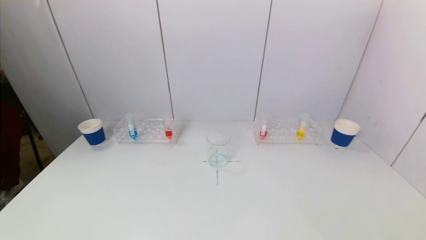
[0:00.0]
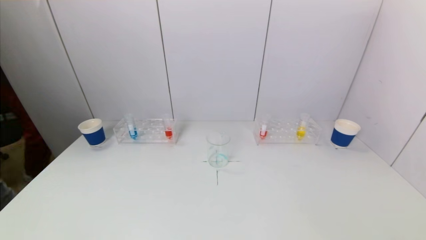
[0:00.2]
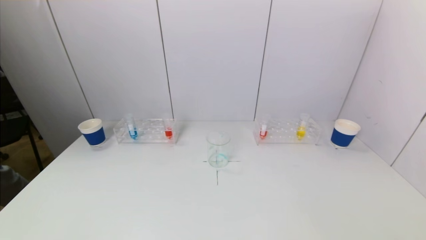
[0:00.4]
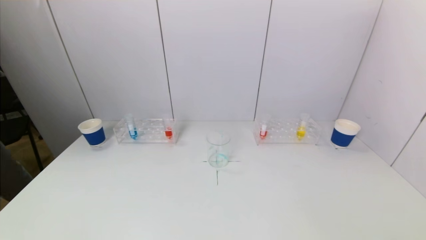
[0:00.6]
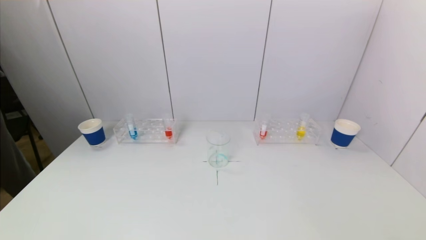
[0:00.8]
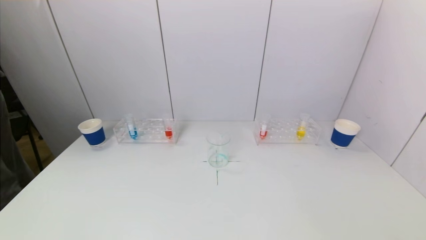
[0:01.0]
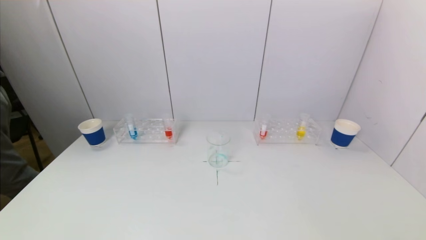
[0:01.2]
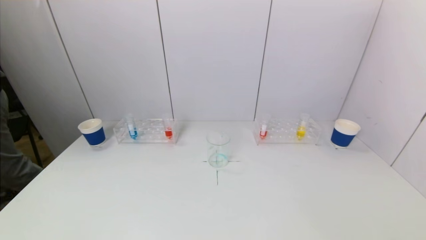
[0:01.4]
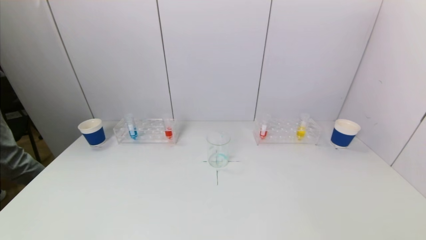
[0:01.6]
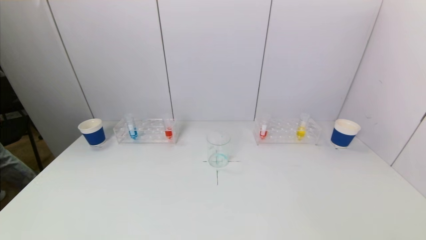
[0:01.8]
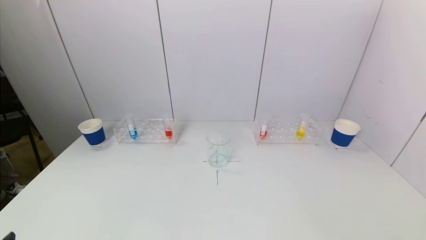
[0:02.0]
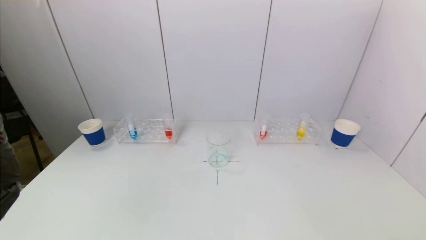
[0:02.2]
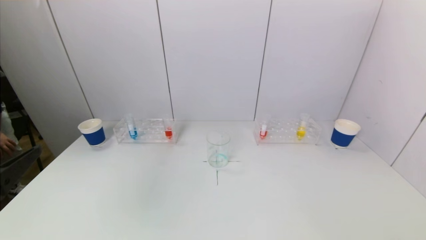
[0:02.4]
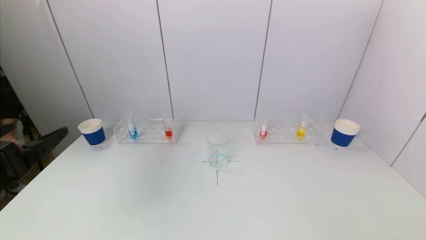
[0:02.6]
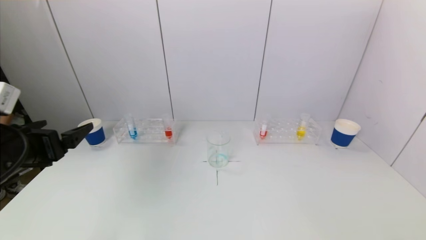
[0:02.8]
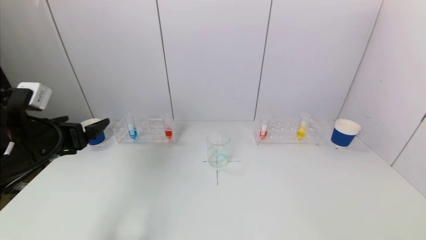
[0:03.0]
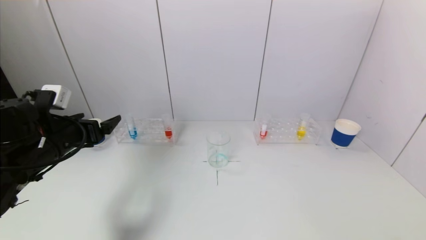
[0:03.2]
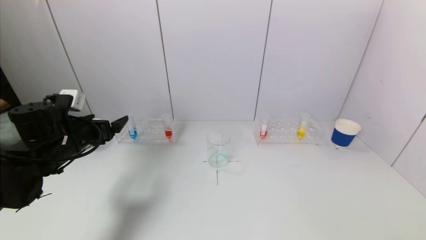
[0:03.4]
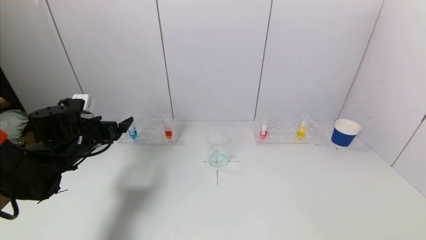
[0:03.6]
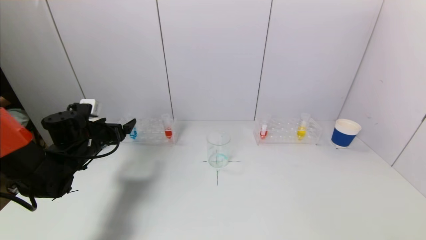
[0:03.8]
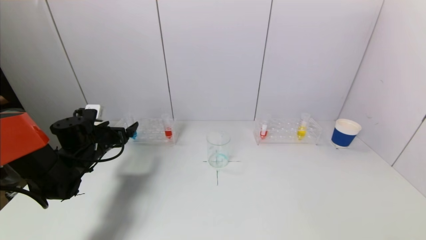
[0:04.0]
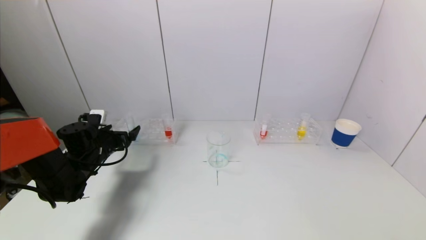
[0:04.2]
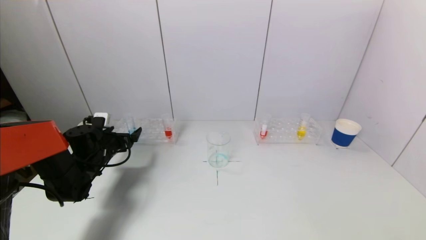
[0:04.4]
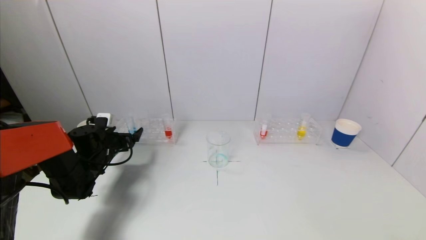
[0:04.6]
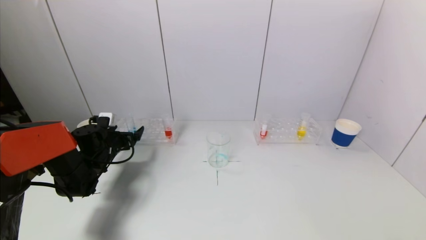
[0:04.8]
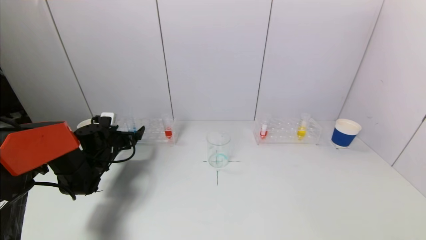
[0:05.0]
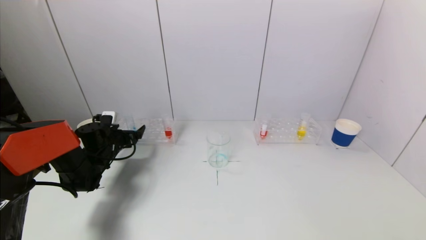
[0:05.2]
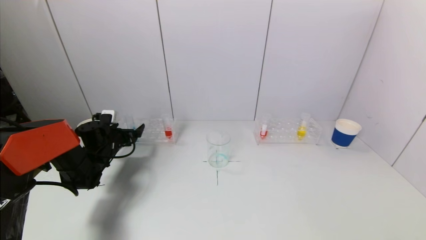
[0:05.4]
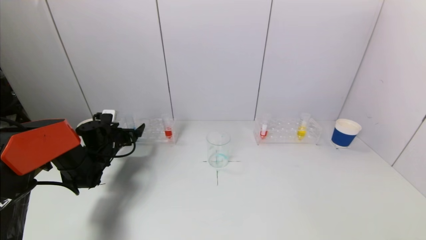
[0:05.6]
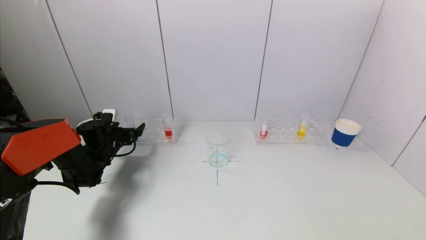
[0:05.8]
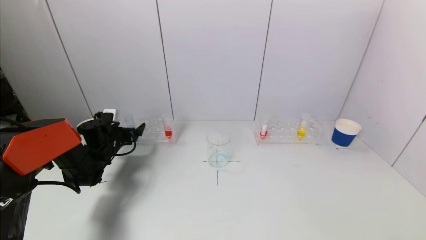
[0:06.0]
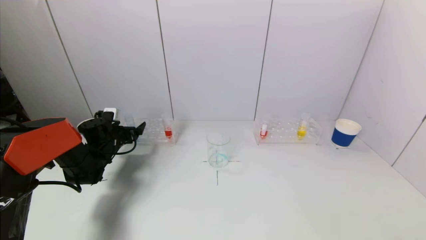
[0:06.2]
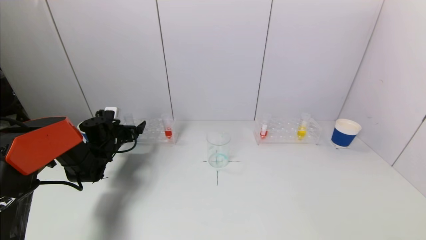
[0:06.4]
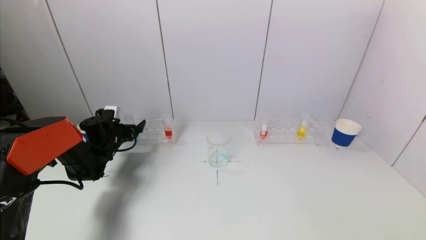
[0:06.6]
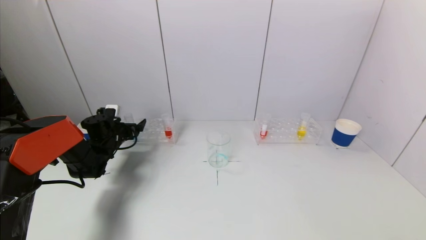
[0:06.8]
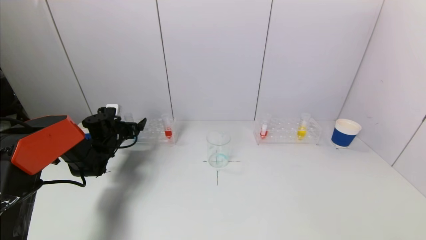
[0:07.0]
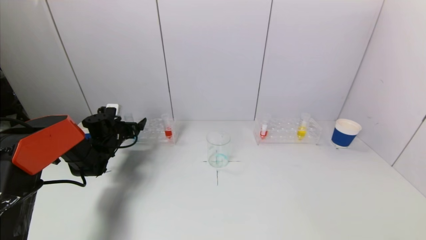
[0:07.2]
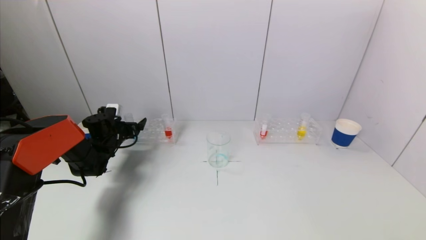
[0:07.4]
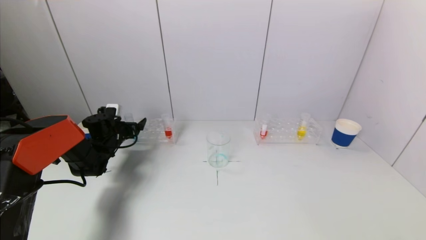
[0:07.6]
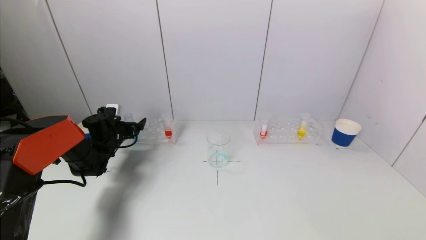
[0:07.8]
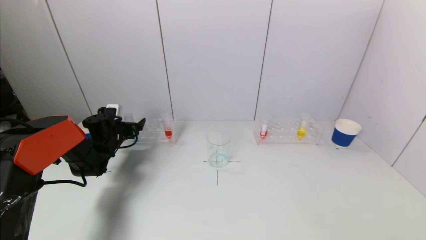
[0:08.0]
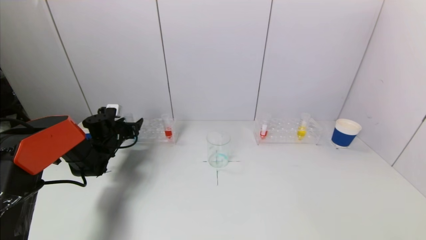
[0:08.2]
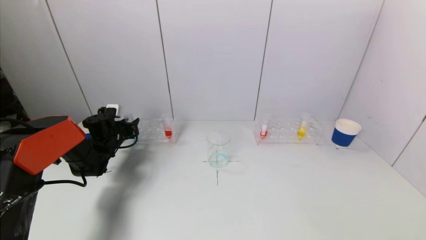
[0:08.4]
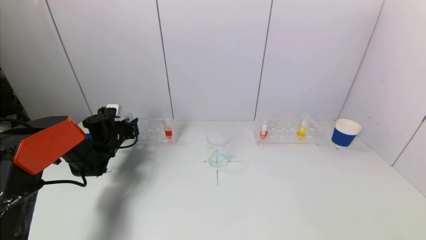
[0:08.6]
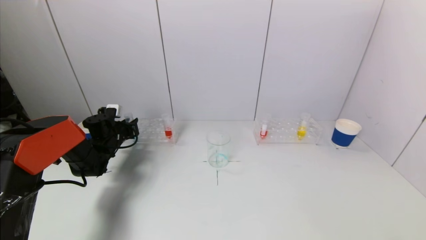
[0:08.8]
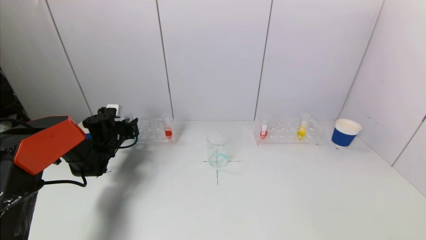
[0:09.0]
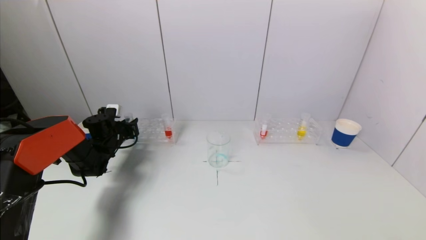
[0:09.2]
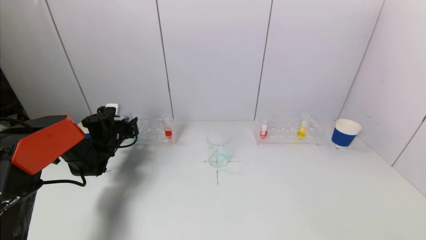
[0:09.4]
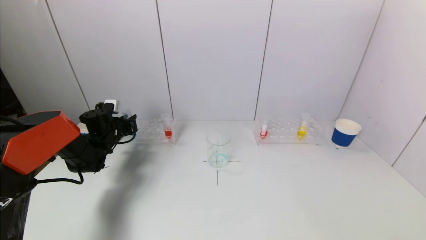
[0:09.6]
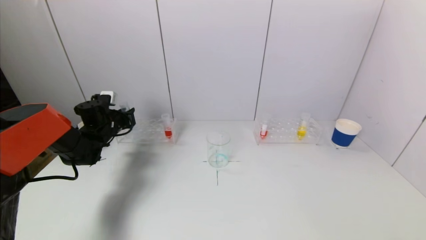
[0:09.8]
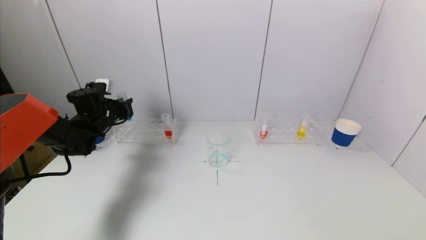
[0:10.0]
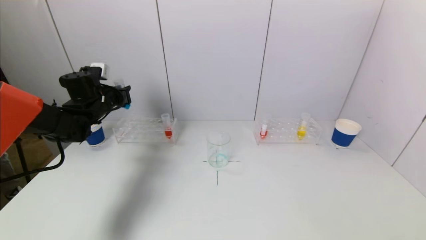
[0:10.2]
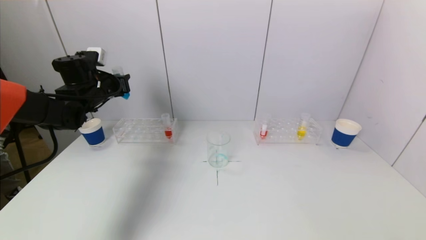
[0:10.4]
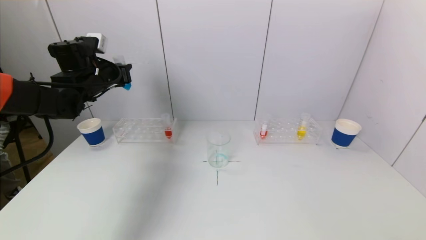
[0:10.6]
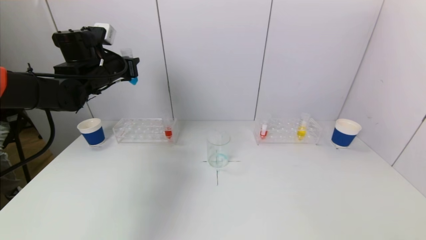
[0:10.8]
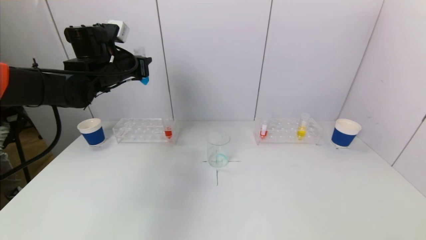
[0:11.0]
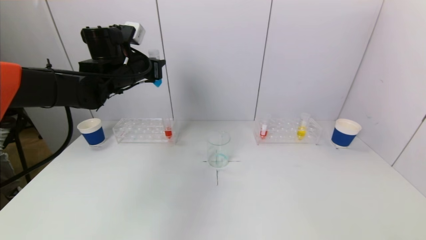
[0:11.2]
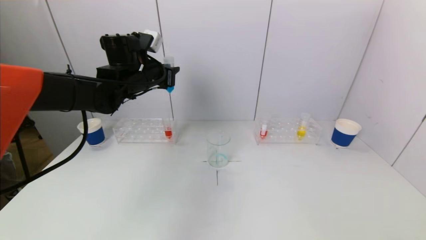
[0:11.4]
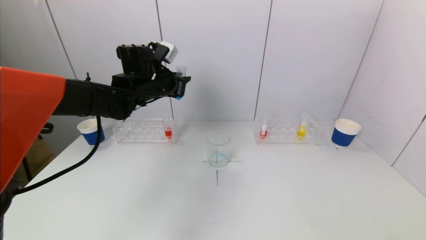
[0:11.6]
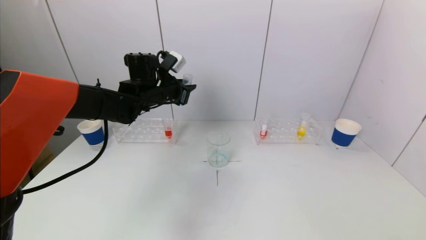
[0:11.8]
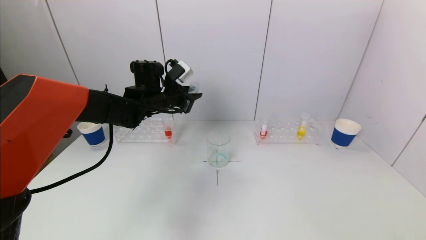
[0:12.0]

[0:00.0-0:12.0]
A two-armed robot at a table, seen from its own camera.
Task of the whole recording: pick up a test tube with pigment on left test tube rack and a test tube with pigment on right test tube rack by grippers and pour them into the beaker.
Step, 0:00.0 to 0:08.8: Grasp the blue reagent with the left gripper.
0:00.0 to 0:01.6: The grippers move only a little.
0:01.6 to 0:03.0: The left gripper shifts some 25 cm forward and upward.
0:03.0 to 0:04.4: The left gripper travels forward and downward by approximately 20 cm.
0:04.4 to 0:06.0: The left gripper shifts by some 5 cm.
0:06.0 to 0:07.6: The grippers make only small movements.
0:07.6 to 0:09.0: The left gripper closes.
0:09.0 to 0:10.4: The left gripper shifts roughly 15 cm upward.
0:10.4 to 0:12.0: The left gripper heads to the right, covering some 15 cm.

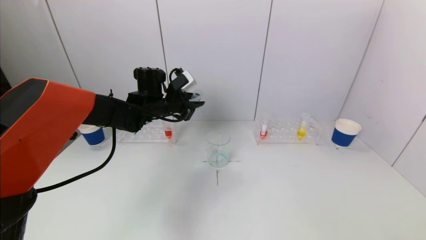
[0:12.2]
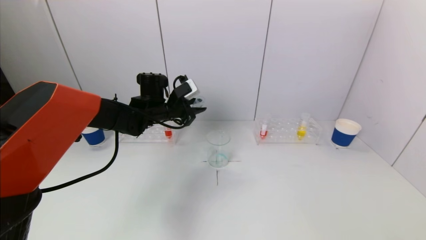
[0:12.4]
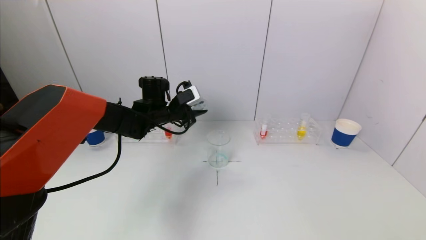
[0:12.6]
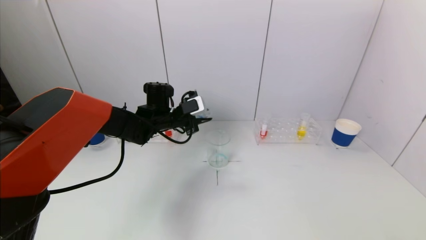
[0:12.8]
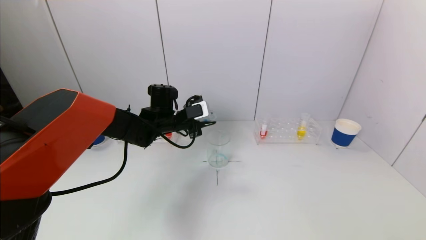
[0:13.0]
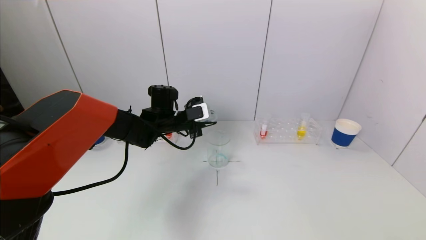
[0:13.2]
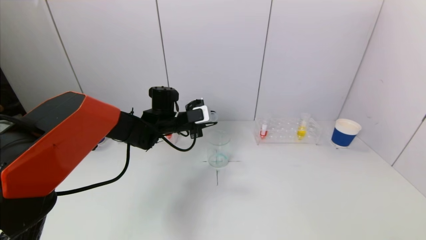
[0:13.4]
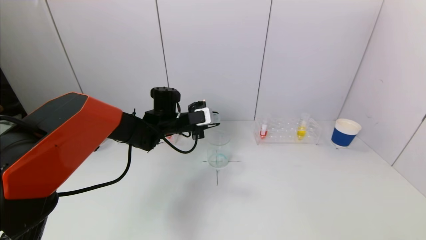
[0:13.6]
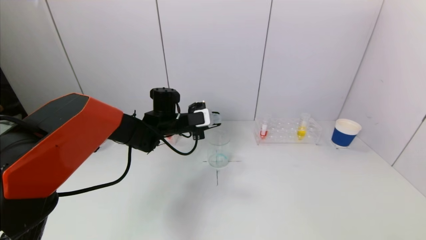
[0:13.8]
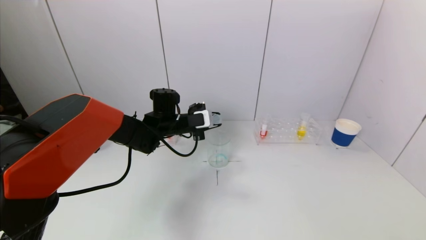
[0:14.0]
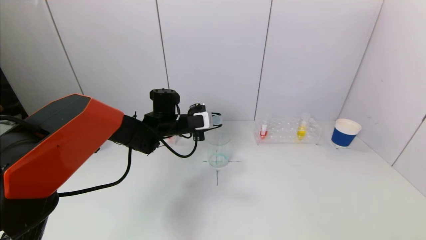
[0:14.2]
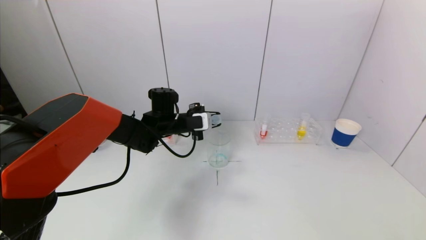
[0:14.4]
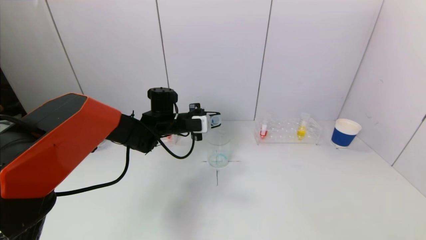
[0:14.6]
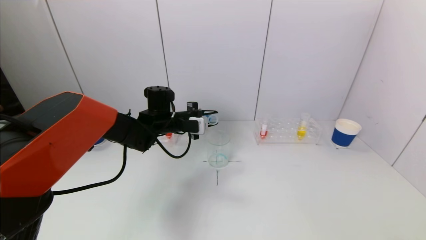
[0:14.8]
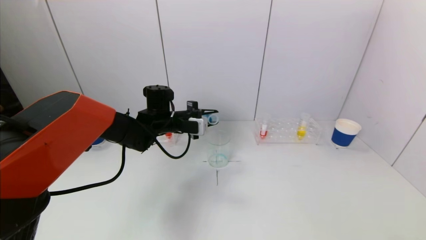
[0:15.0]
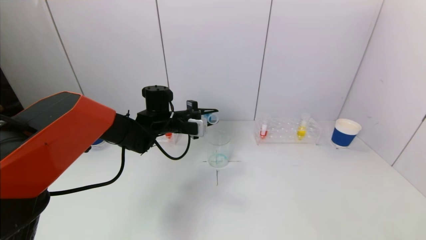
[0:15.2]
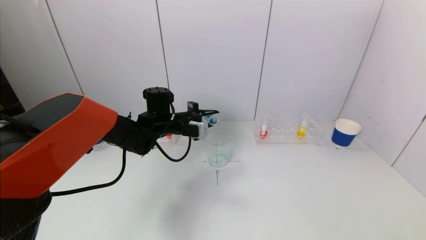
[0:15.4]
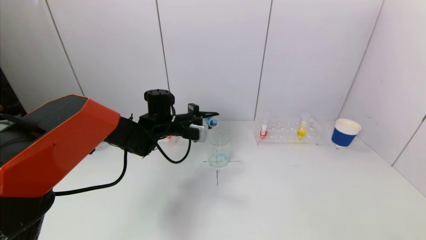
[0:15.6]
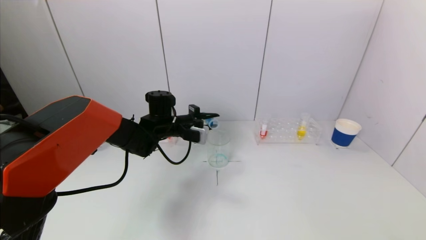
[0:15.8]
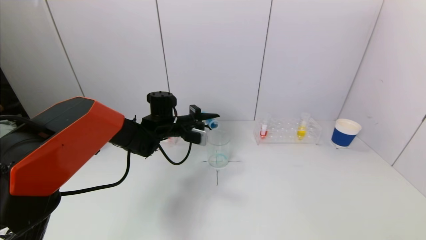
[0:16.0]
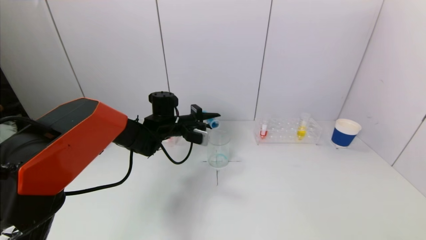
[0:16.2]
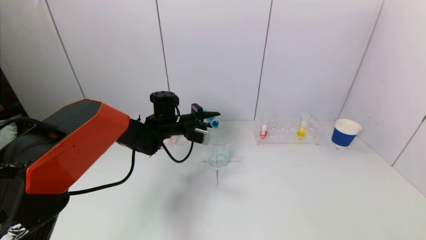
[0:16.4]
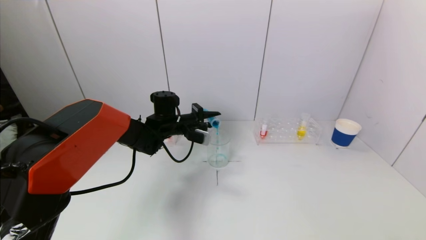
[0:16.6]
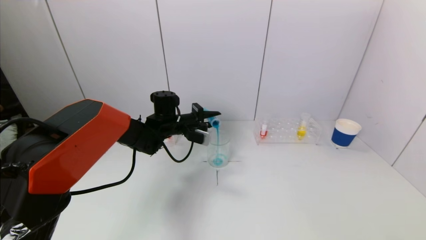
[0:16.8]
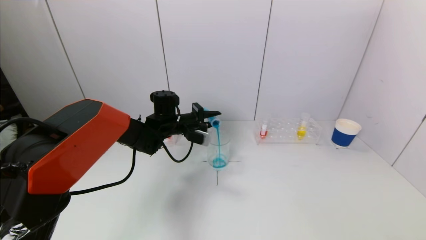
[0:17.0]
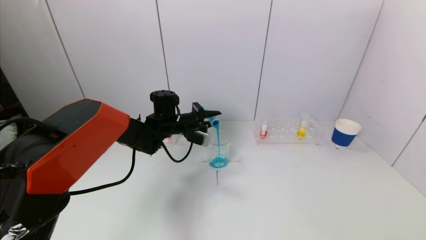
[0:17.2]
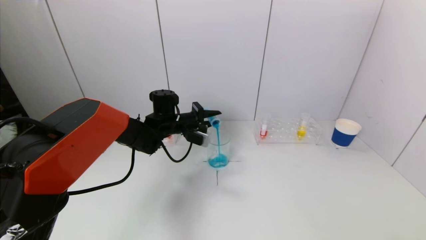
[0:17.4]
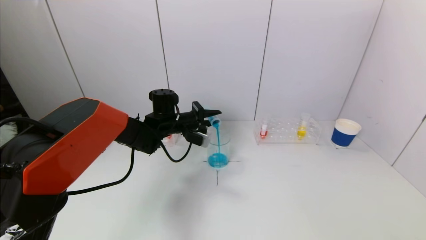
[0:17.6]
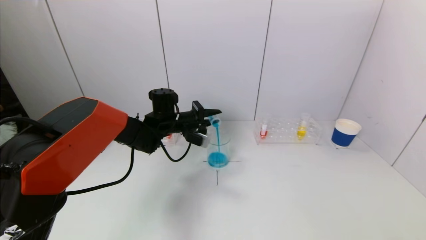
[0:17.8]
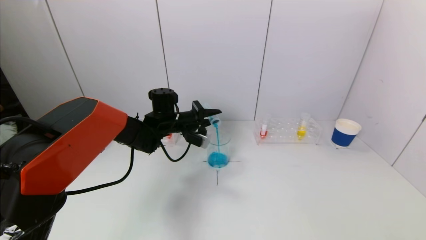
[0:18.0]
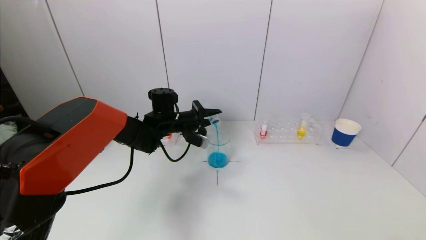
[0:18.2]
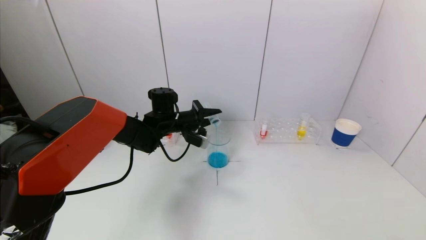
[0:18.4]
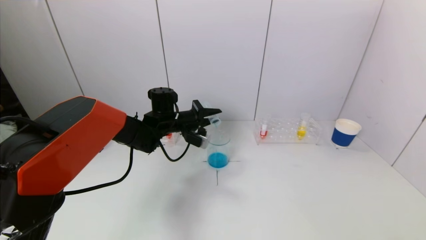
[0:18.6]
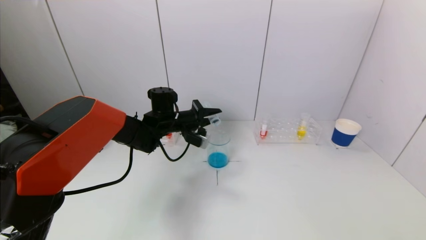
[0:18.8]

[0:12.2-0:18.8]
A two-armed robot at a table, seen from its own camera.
Task of the whole recording: pick up a test tube with pigment on left test tube rack and a test tube with pigment on right test tube rack by grippers and pour them into the beaker.
0:12.2 to 0:13.8: The left gripper travels downward by roughly 5 cm.
0:15.4 to 0:17.2: The grippers make only small movements.
0:17.2 to 0:18.8: The grippers move only a little.
